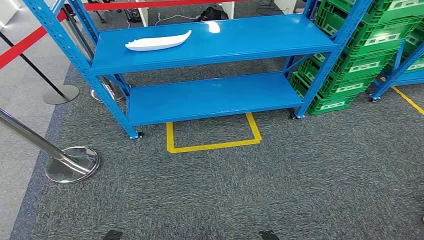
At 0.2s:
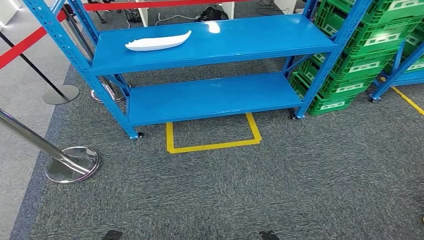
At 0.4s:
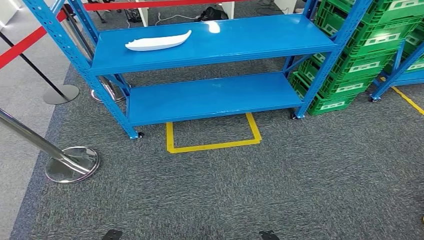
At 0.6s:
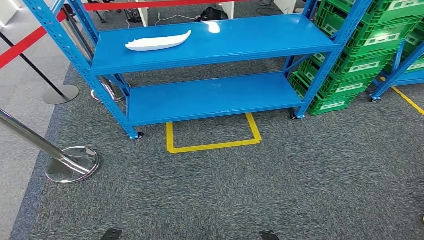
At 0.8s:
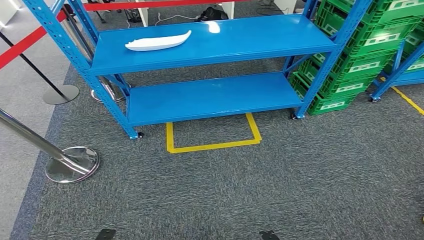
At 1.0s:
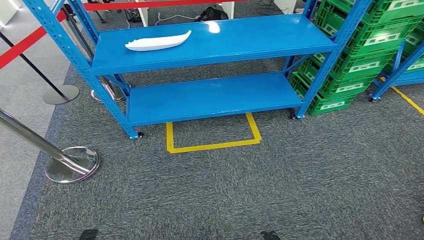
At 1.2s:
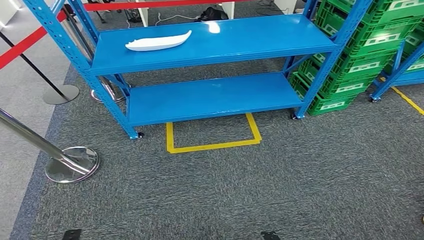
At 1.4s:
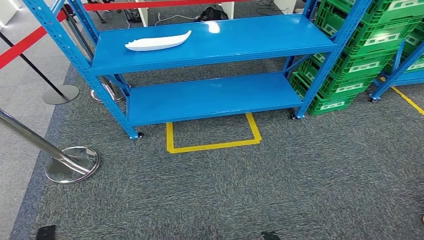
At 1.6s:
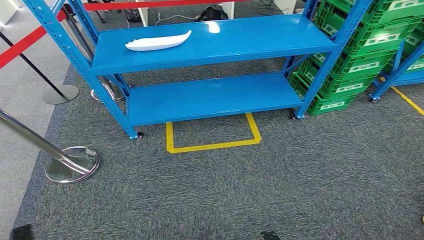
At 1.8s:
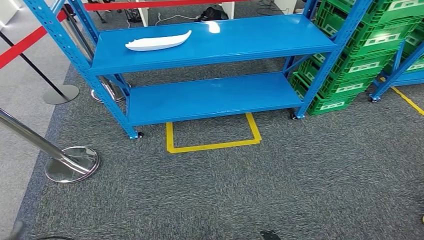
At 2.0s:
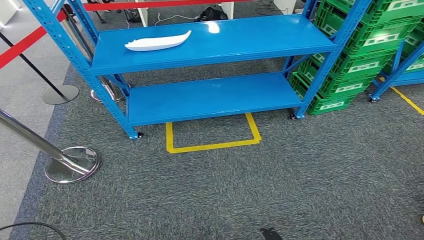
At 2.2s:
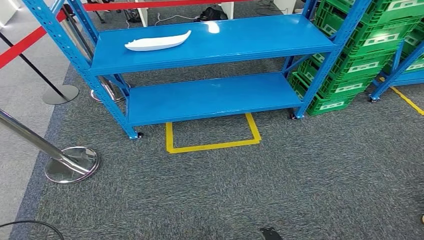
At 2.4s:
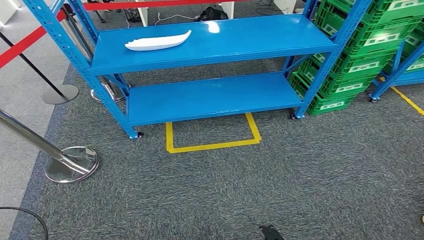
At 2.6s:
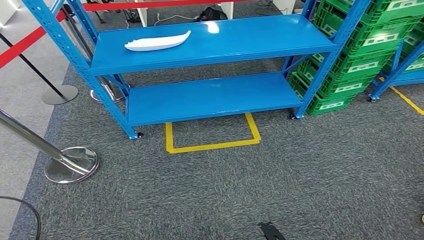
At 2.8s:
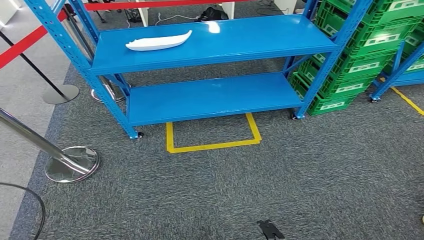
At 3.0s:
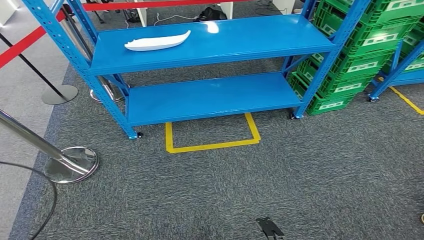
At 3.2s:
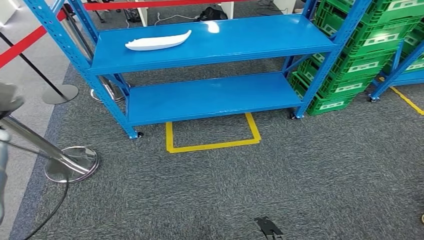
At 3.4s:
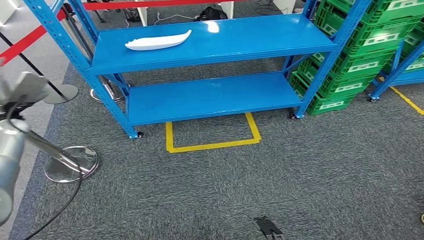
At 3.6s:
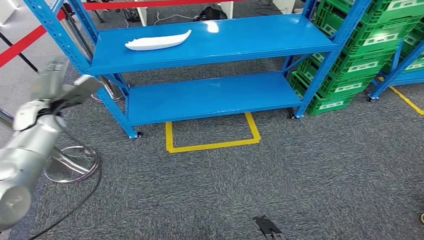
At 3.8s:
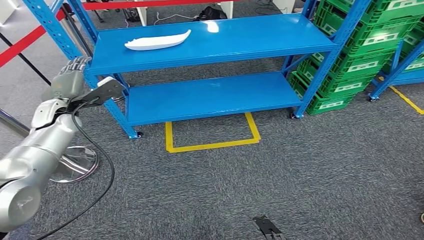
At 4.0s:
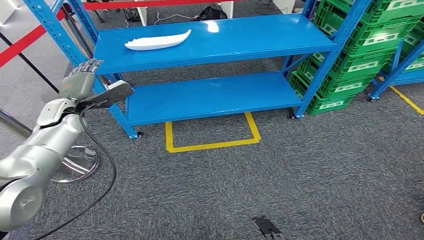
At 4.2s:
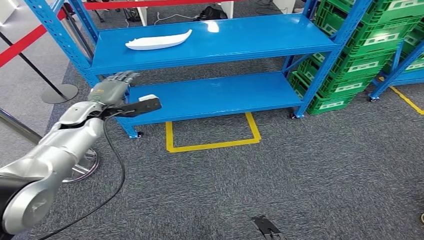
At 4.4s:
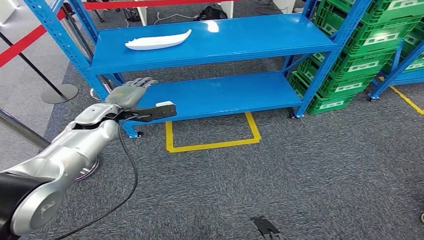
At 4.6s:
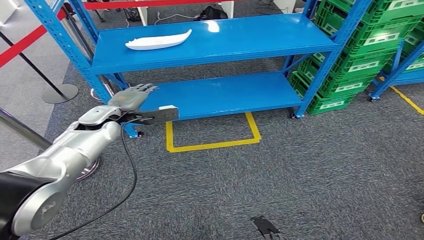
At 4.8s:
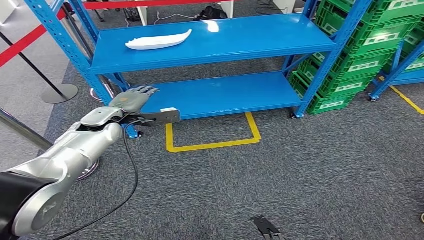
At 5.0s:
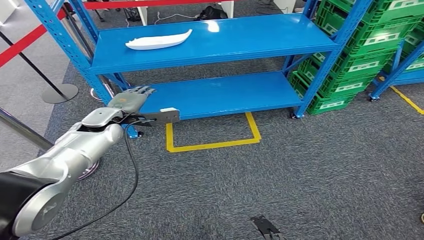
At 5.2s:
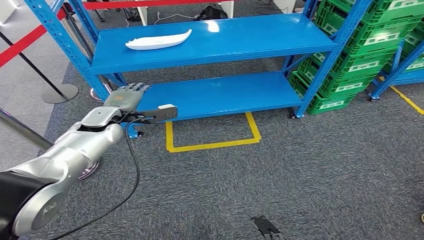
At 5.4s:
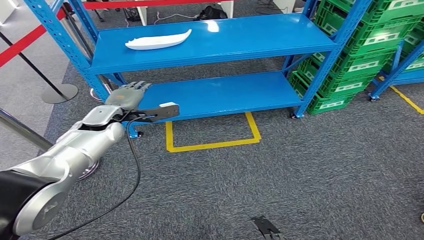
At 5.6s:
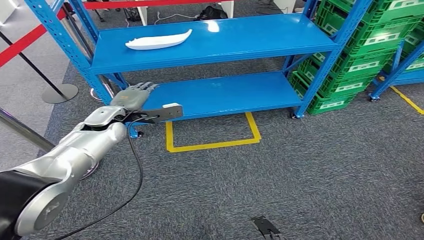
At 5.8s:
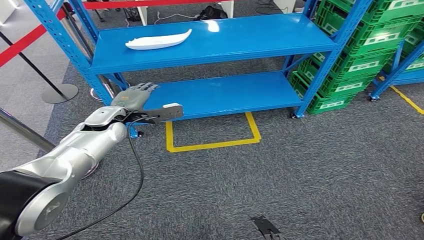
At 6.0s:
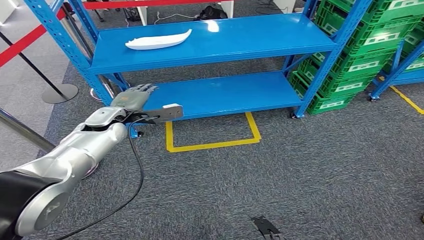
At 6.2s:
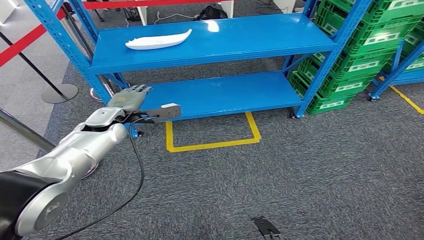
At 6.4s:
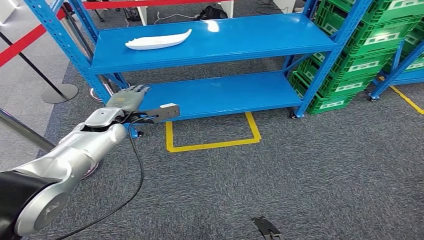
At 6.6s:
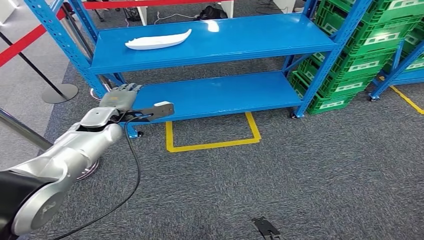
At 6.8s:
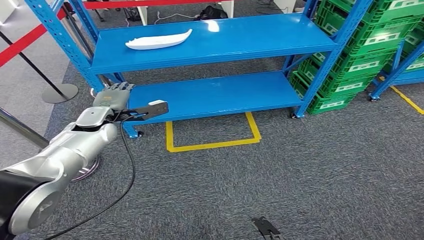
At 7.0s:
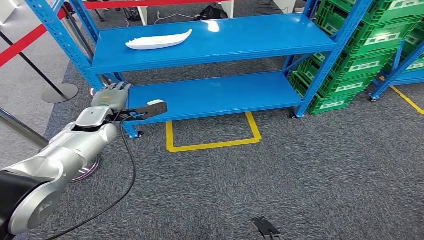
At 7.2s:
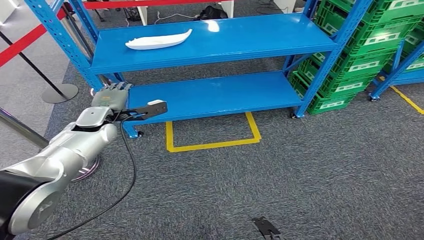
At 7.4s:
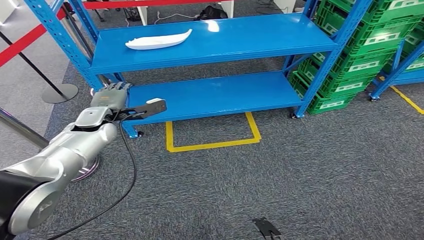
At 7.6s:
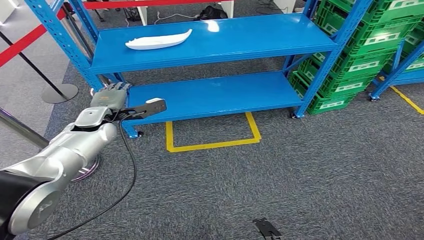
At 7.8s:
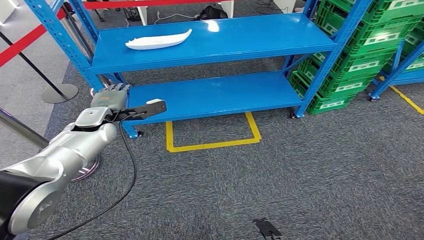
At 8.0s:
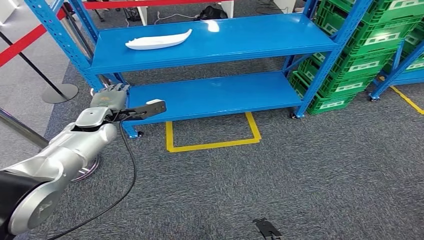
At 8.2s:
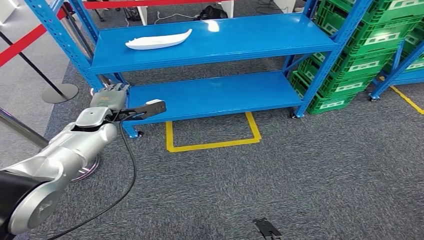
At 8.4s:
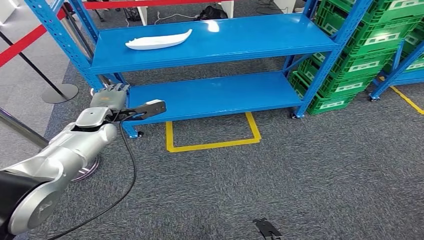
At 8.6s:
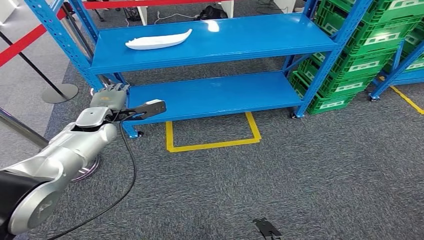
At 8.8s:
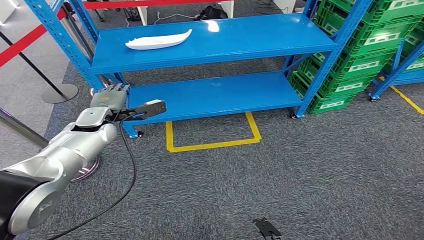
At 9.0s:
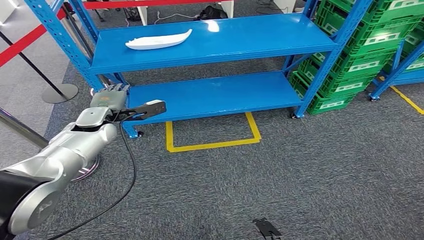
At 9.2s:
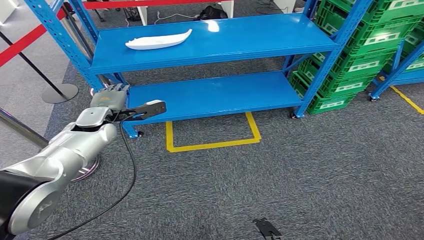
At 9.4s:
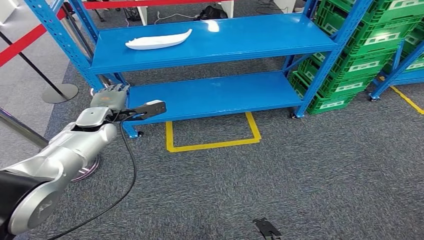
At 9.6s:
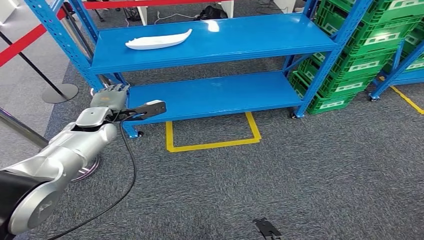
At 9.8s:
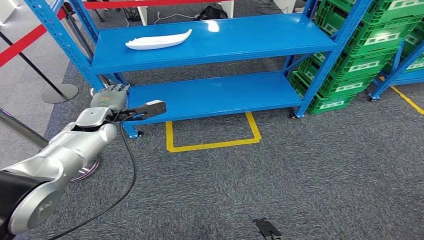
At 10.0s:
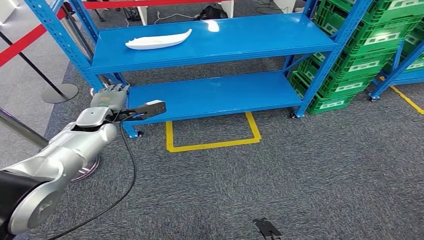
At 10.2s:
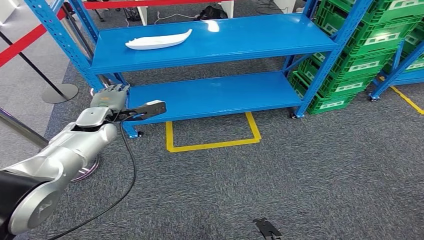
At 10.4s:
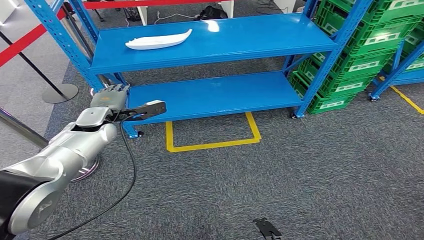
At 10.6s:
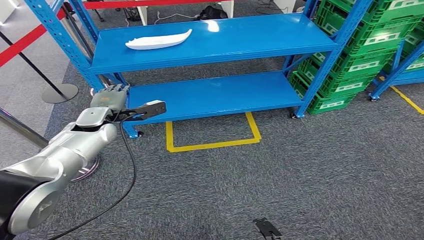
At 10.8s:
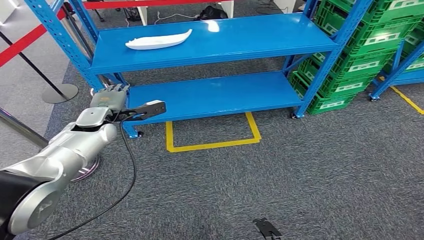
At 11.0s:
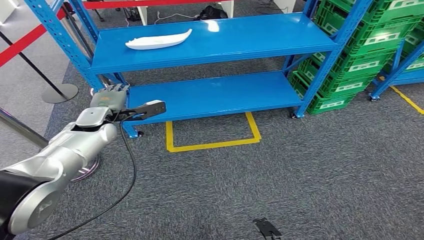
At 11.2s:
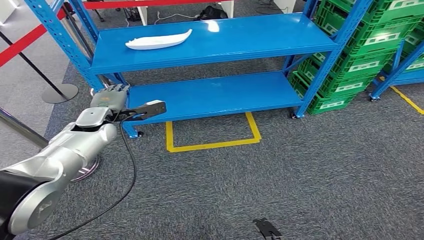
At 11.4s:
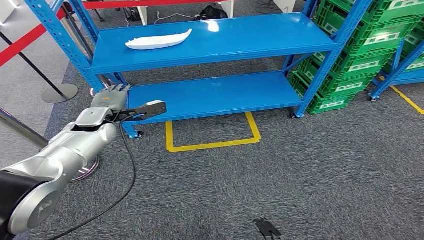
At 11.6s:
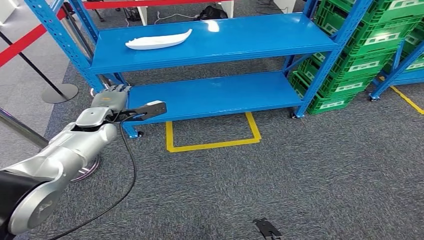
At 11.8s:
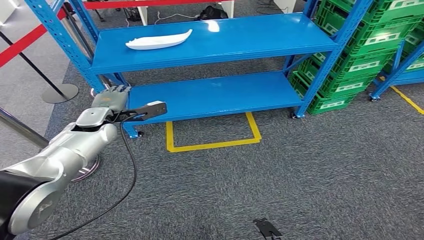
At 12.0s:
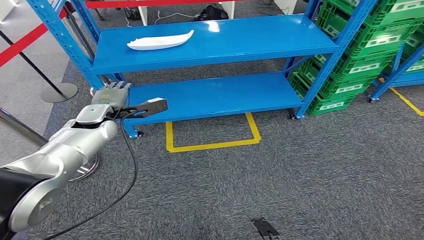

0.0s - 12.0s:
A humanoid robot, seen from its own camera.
1.6s - 3.0s: The left hand heads forward, upward and to the left, covering roughly 40 cm.
3.0s - 4.4s: The left hand shifts about 30 cm to the right.
4.4s - 7.6s: The hands make only small movements.
7.6s - 12.0s: Both hands stay about where they are.

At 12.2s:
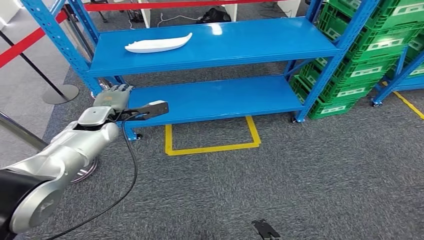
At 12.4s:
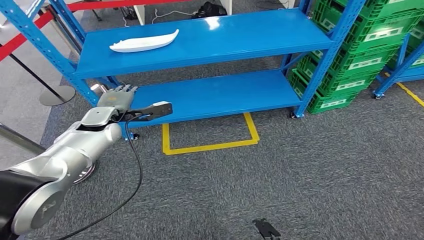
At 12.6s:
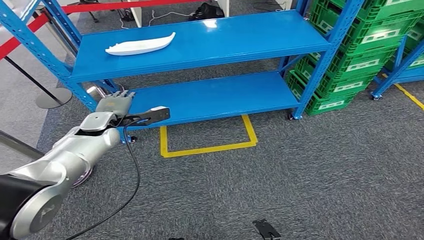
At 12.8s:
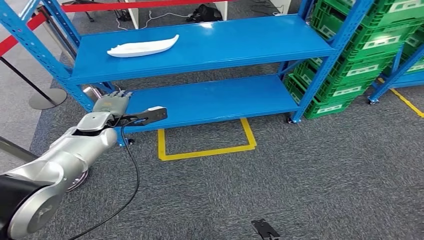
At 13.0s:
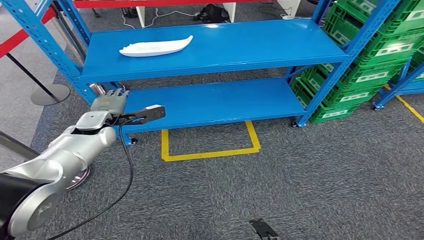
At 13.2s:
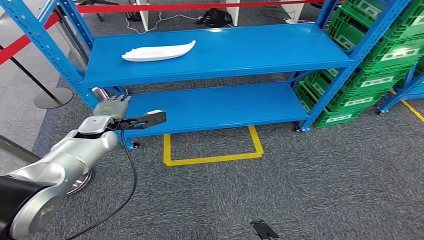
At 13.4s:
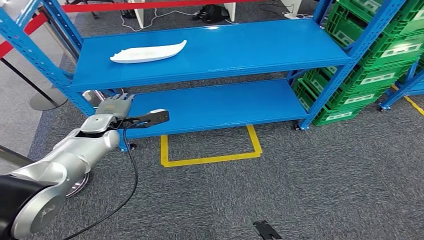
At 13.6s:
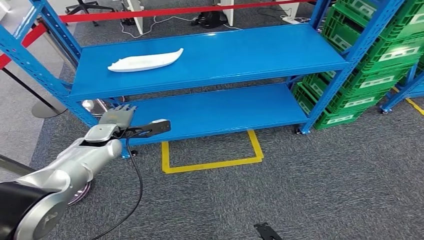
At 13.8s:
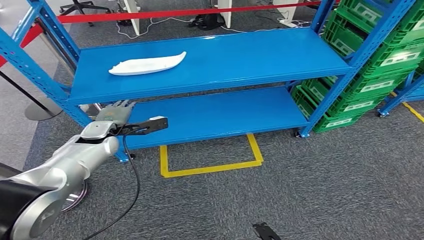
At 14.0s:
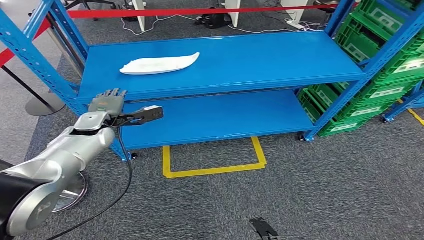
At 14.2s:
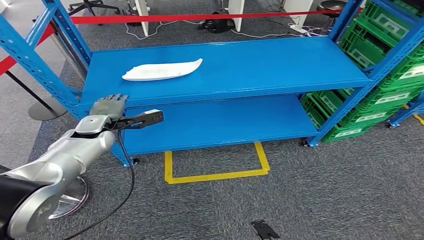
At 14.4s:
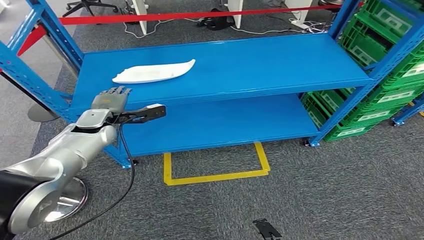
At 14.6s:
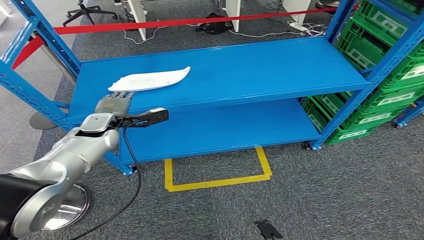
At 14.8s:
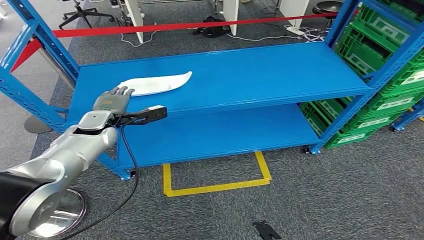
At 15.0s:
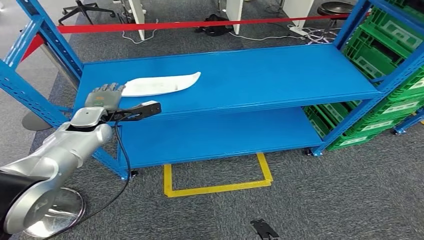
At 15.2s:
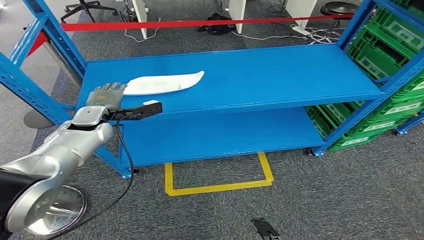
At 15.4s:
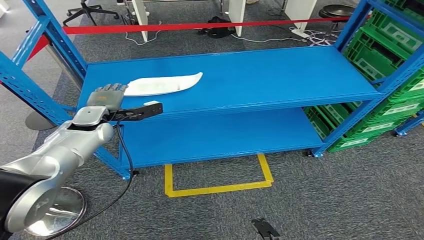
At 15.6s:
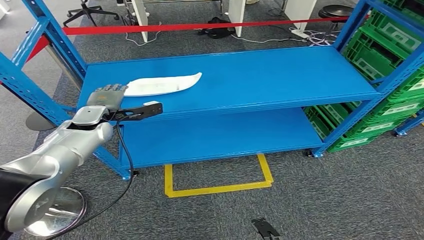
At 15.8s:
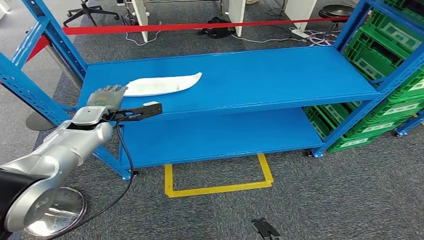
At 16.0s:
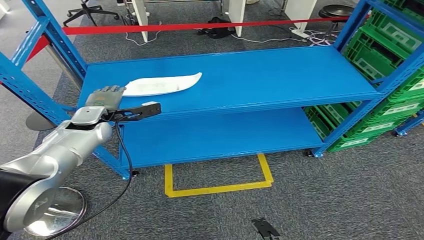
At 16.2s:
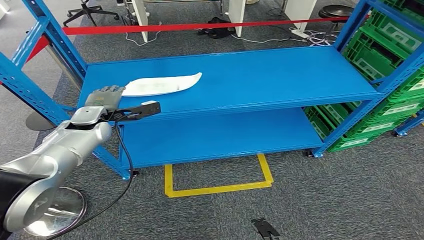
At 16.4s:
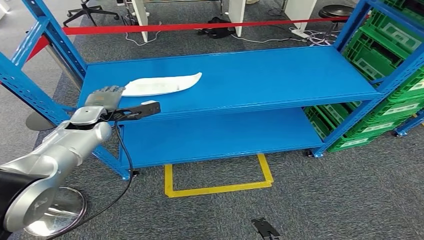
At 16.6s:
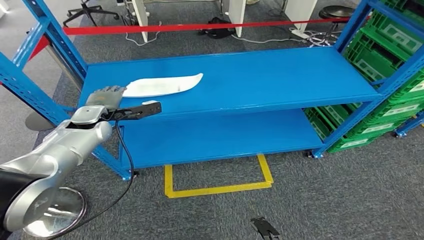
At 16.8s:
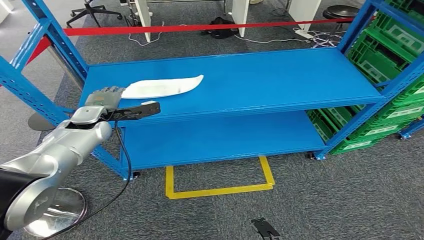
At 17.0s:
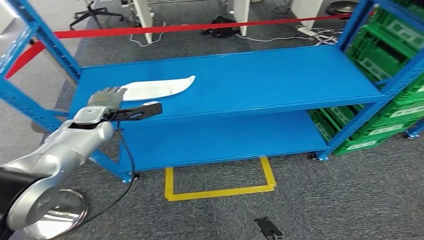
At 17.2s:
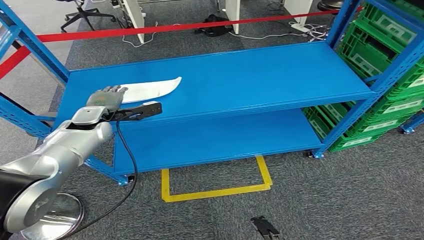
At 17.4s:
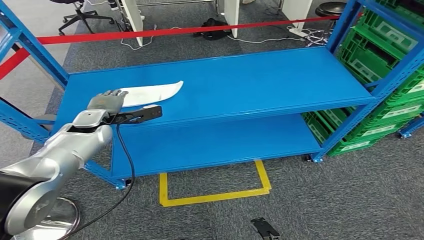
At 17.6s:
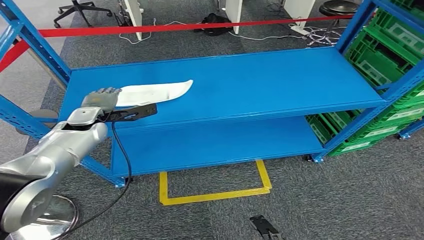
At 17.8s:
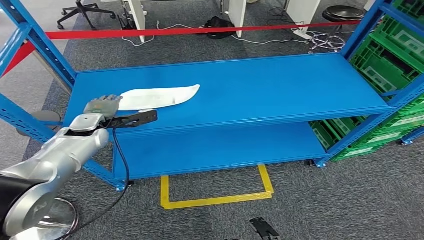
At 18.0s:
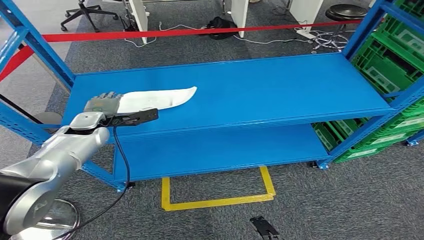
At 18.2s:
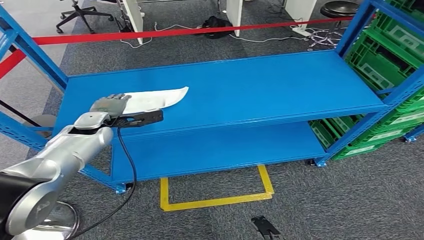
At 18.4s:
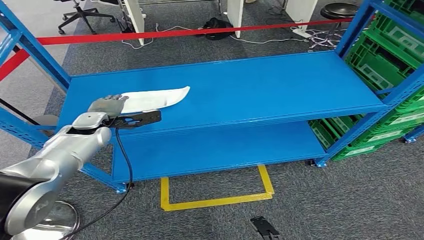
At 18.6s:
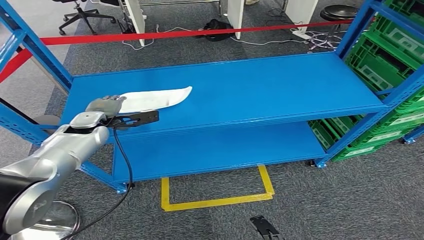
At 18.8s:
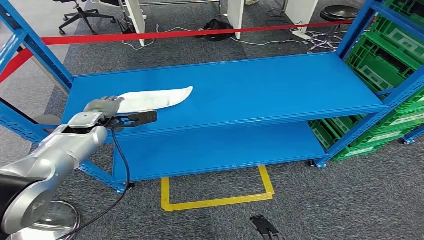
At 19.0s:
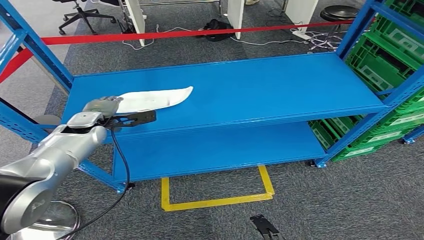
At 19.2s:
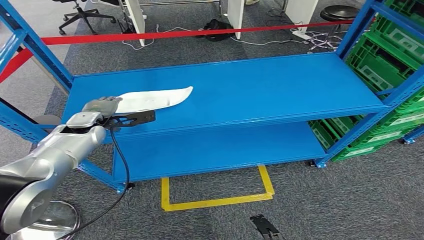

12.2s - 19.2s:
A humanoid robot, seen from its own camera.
15.0s - 16.4s: Both hands stay about where they are.
17.8s - 19.2s: The two hands keep their place.
